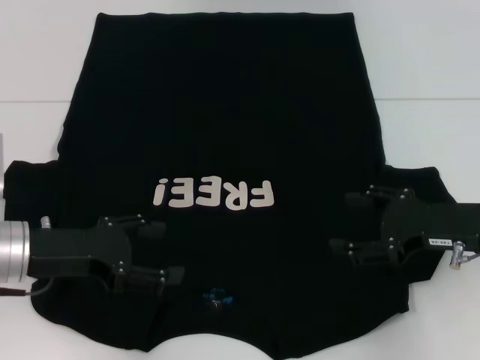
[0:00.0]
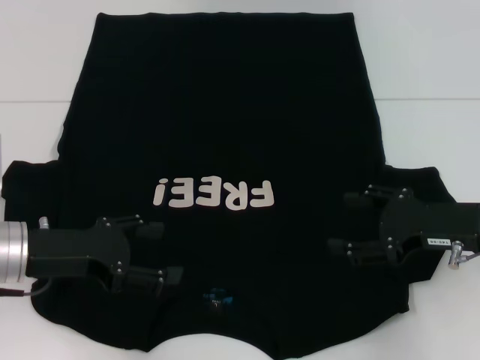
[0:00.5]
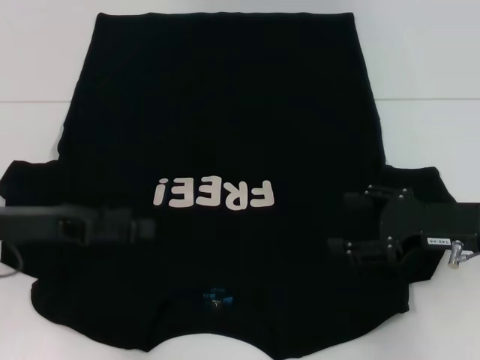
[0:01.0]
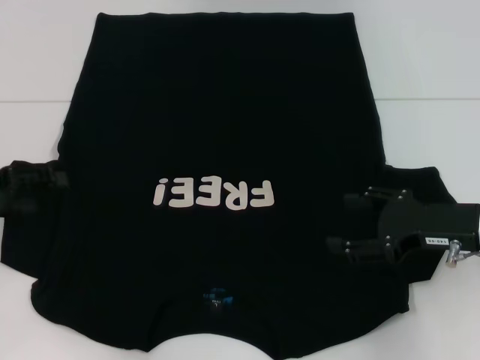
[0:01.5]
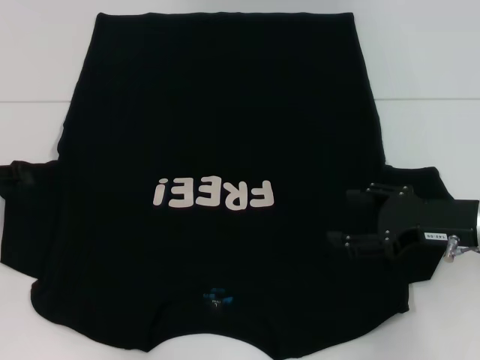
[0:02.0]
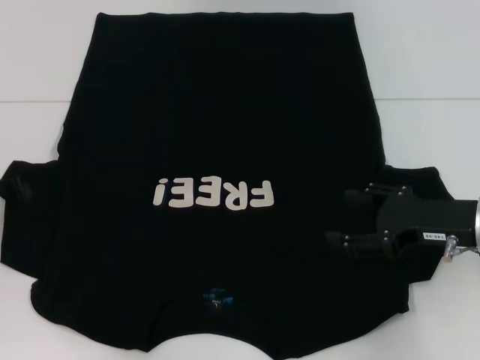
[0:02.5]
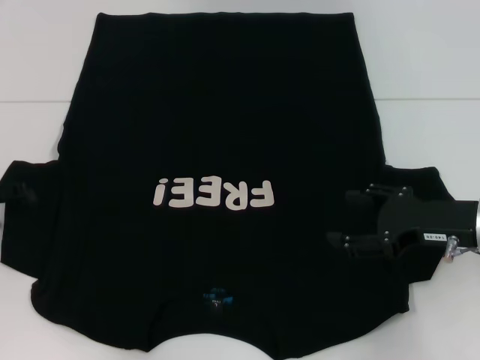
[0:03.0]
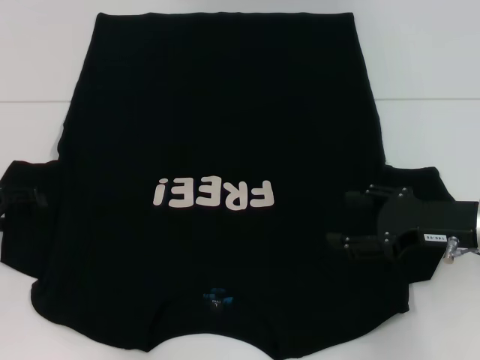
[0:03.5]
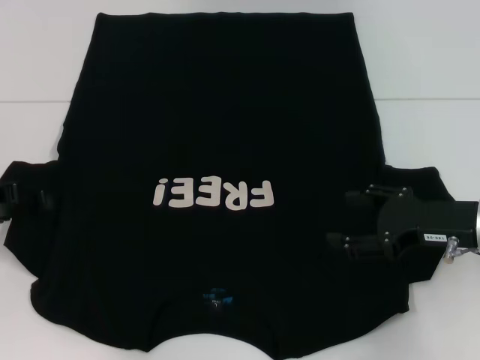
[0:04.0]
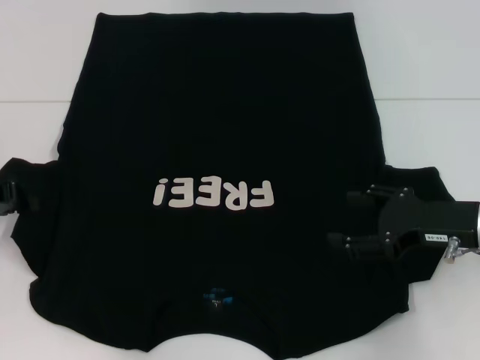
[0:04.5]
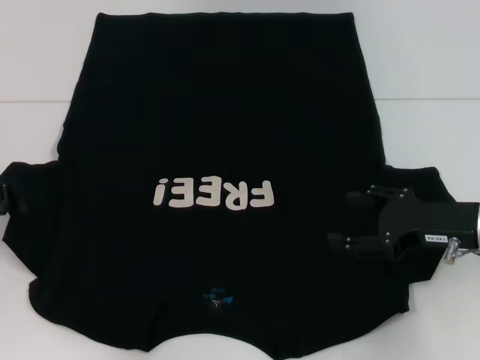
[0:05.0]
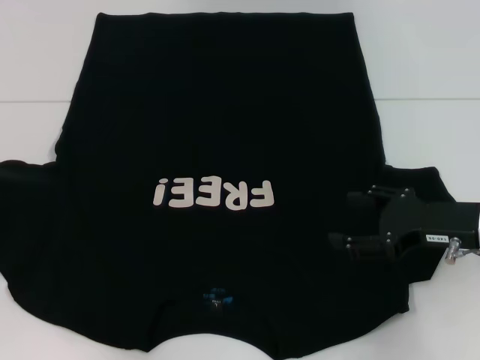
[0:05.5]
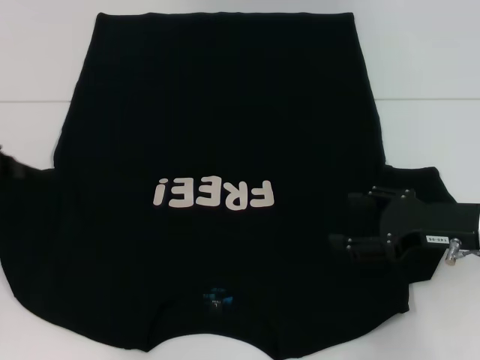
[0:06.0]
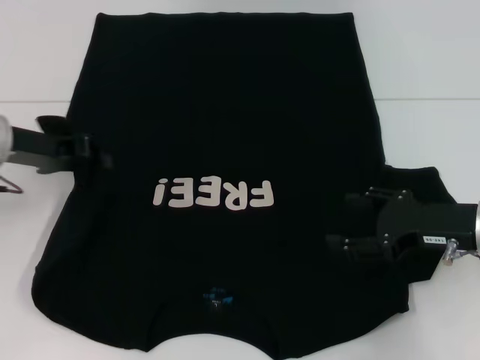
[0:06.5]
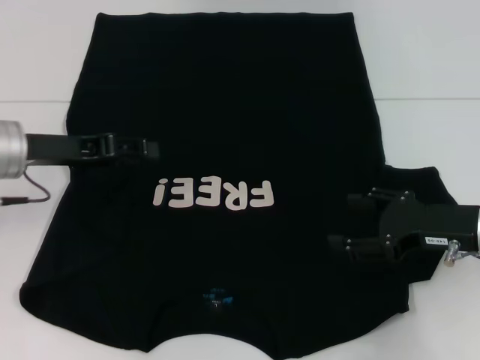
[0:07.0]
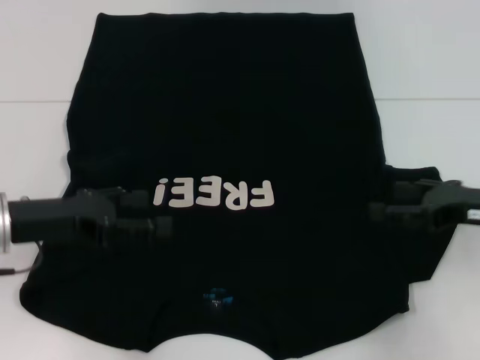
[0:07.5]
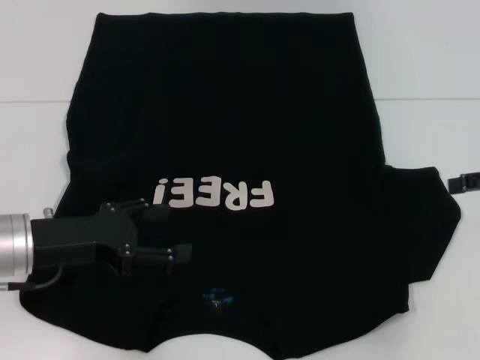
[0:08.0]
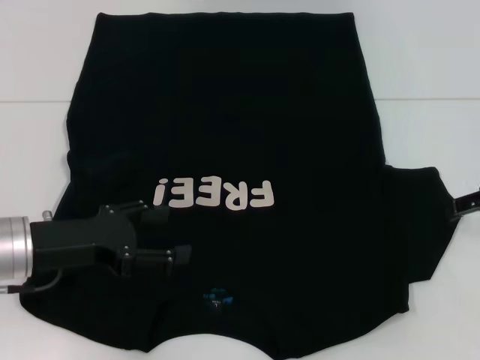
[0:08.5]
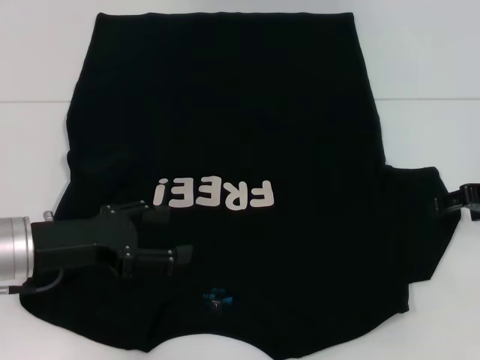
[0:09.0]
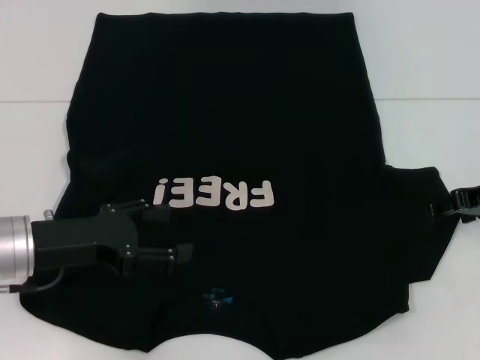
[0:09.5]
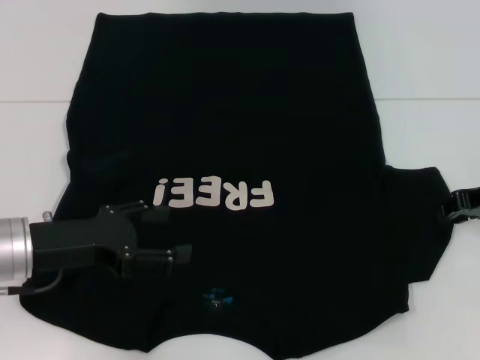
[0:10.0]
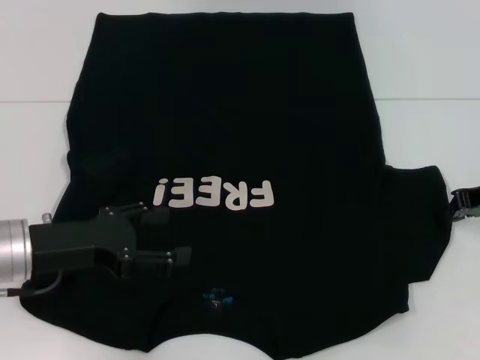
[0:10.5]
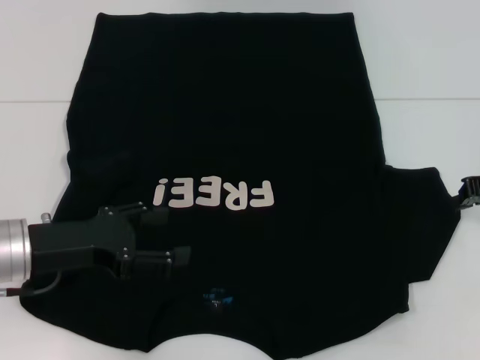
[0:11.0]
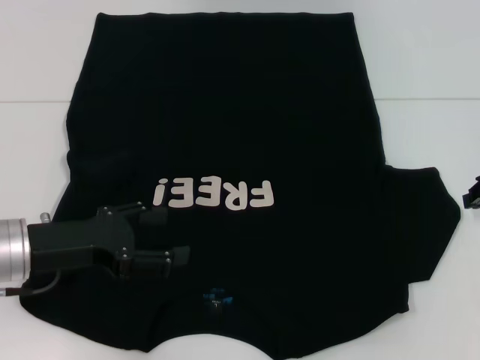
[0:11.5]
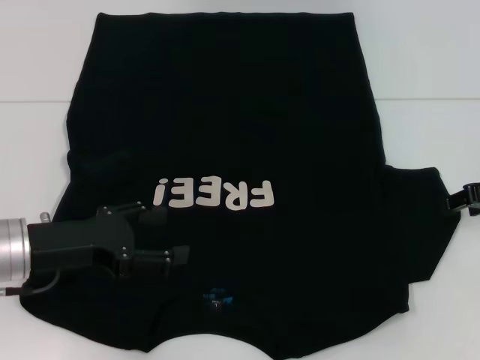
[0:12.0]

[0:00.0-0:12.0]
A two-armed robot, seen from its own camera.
Step, 0:00.0 to 0:11.5: Fold the bottom left sleeve with your left hand.
0:00.0 to 0:02.0: The left gripper heads to the left, covering roughly 10 cm.
0:04.0 to 0:06.0: The left gripper closes.
0:06.0 to 0:08.0: The left gripper goes roughly 15 cm to the right, downward and backward, and opens its fingers. Meanwhile the right gripper goes some 10 cm to the right and upward.
0:08.0 to 0:10.0: The right gripper ends up about 5 cm from where it was, and closes up.

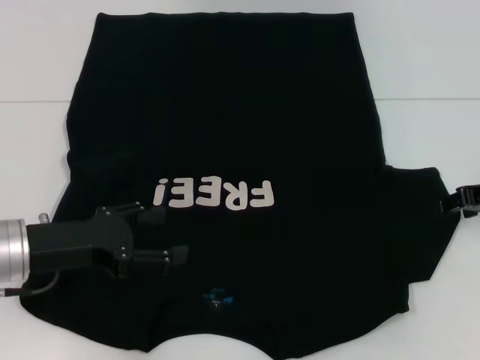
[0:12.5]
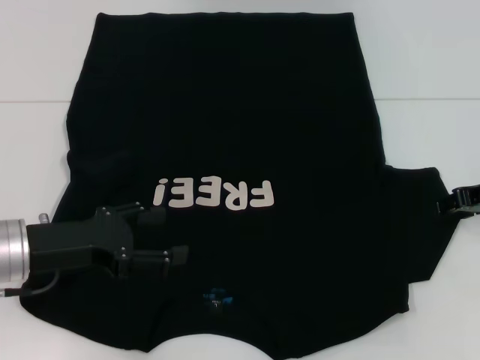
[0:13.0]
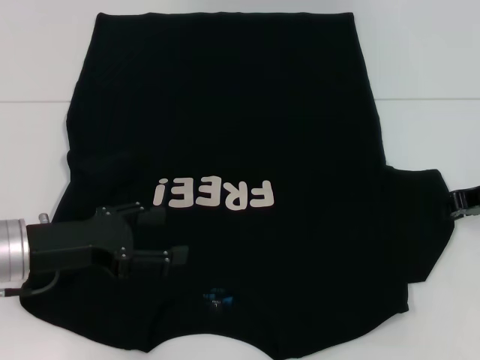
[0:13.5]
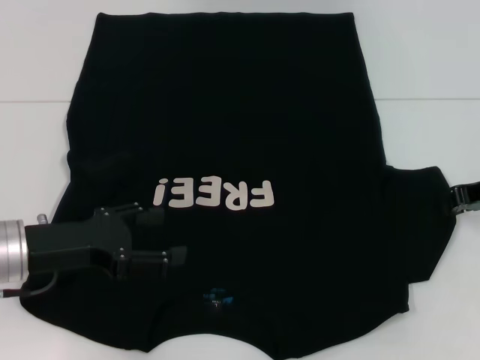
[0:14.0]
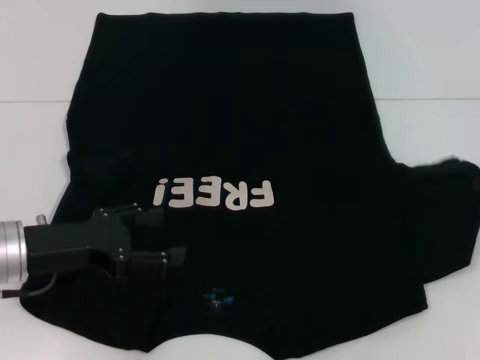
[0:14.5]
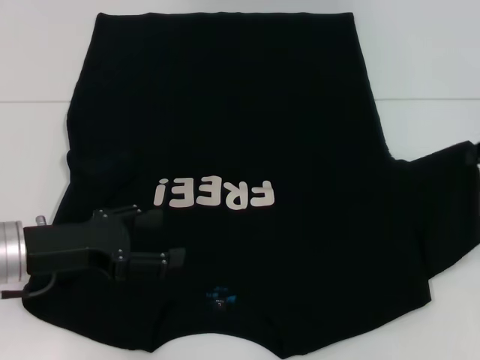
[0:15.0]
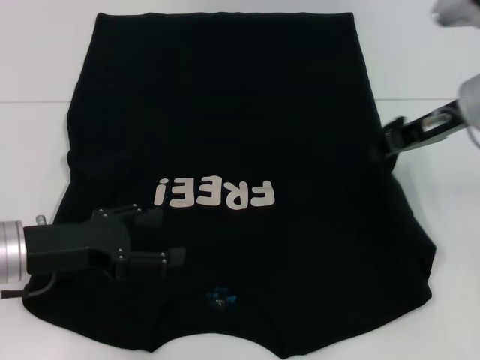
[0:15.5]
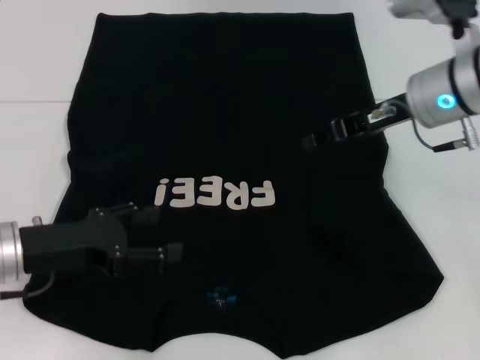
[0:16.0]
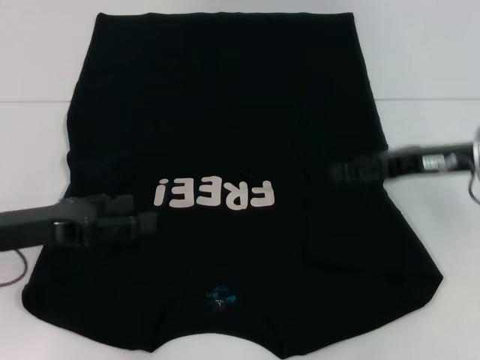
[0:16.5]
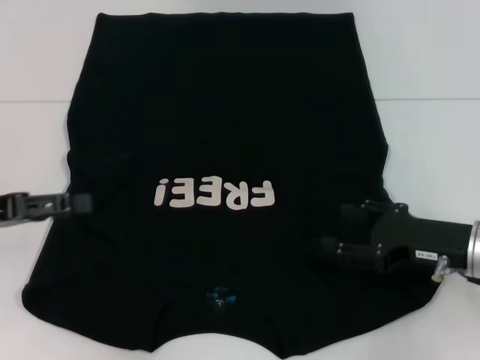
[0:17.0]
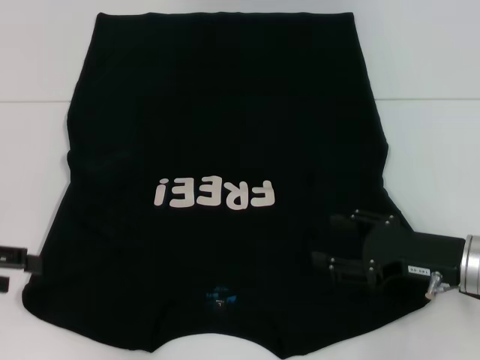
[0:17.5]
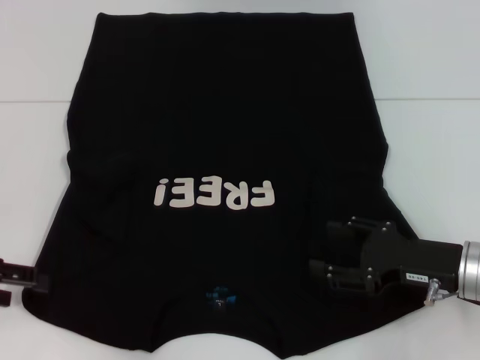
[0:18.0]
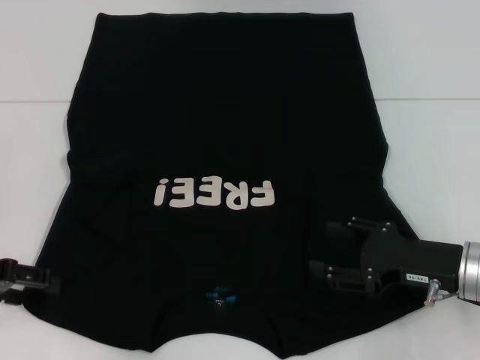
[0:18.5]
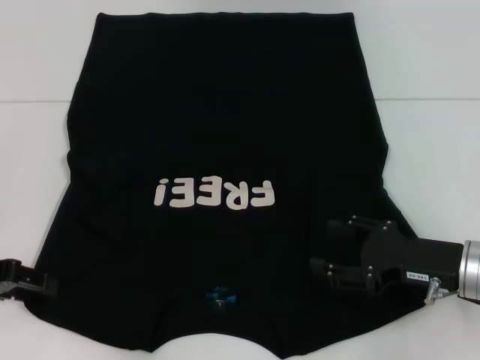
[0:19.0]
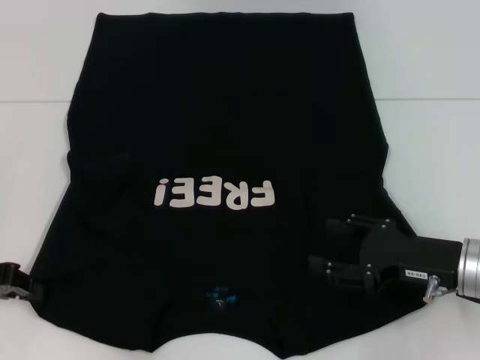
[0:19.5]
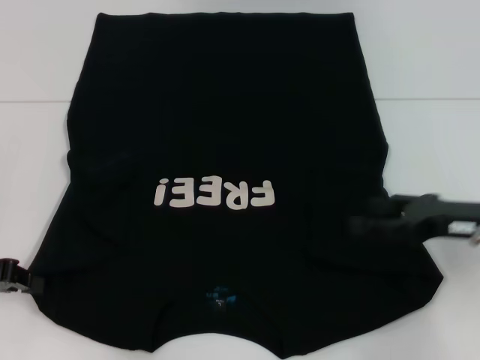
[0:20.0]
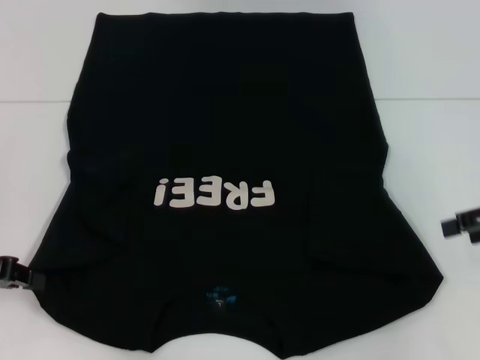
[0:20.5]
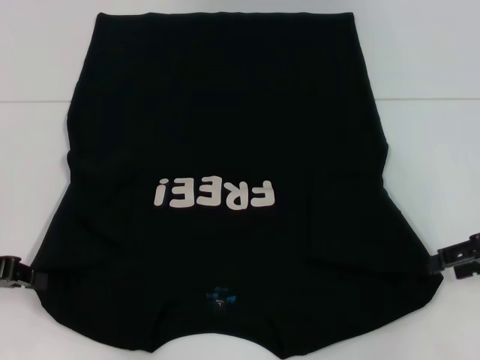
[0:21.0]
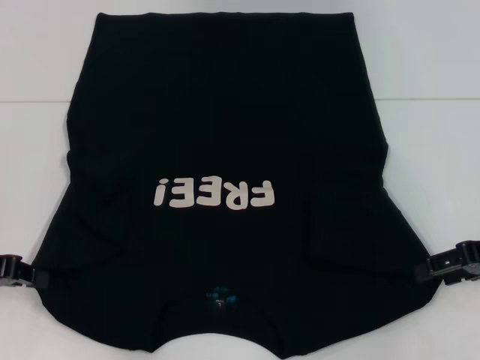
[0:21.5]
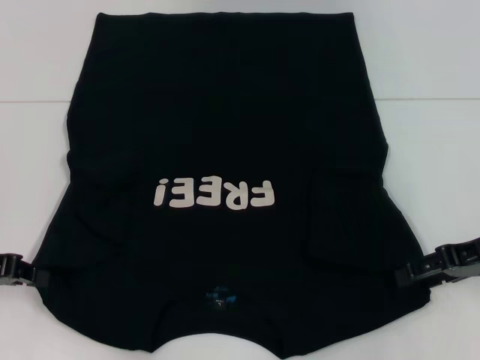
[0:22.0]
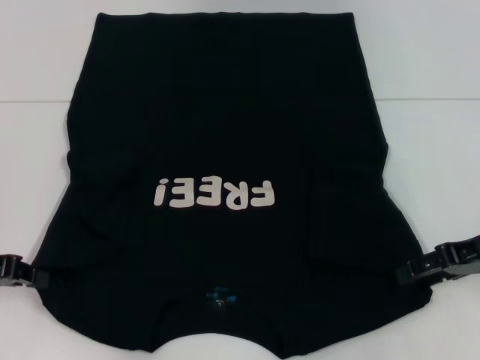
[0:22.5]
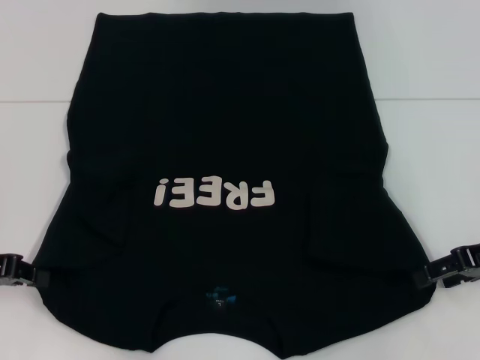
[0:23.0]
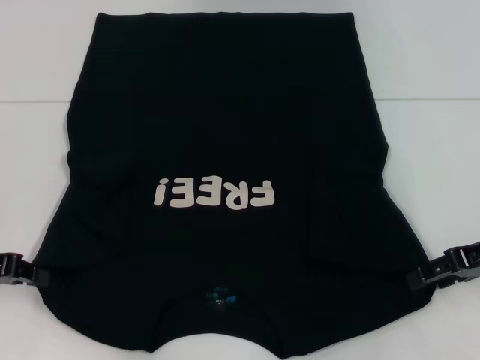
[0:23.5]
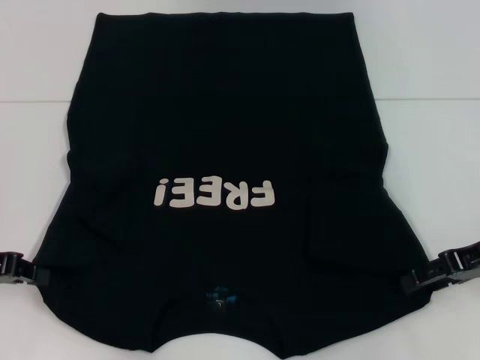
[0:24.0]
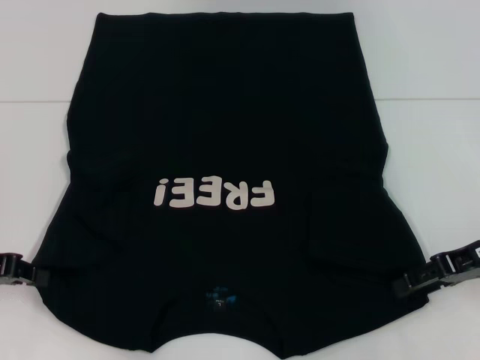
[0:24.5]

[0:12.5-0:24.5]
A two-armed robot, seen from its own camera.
Step, 0:12.5 to 0:16.0: Fold the bottom right sleeve with your right hand.
0:12.5 to 0:14.5: The right gripper closes.
0:14.5 to 0:16.5: The right gripper heads to the left, covering approximately 10 cm, and opens its fingers.
0:16.5 to 0:18.5: The left gripper goes about 5 cm to the left. Meanwhile the right gripper moves backward and downward, approximately 10 cm.
0:18.5 to 0:20.5: The left gripper closes its fingers, while the right gripper goes some 15 cm upward and to the right.
0:20.5 to 0:22.5: The right gripper ends up roughly 5 cm from where it was.
0:22.5 to 0:24.5: The grippers move only a little.

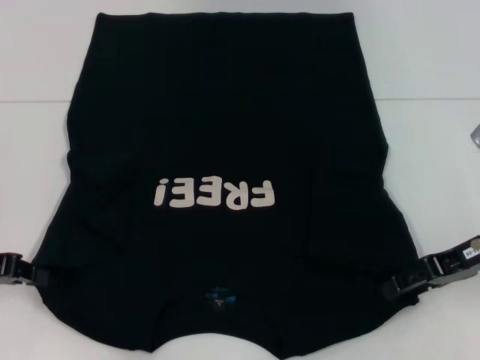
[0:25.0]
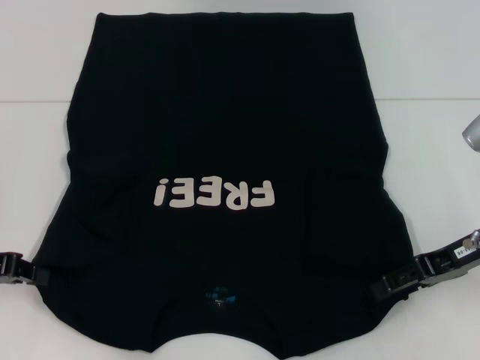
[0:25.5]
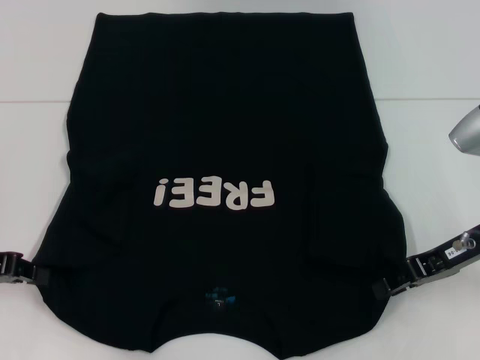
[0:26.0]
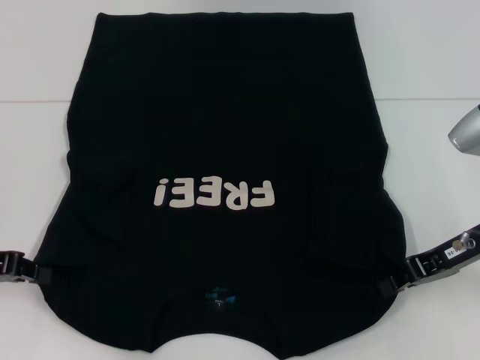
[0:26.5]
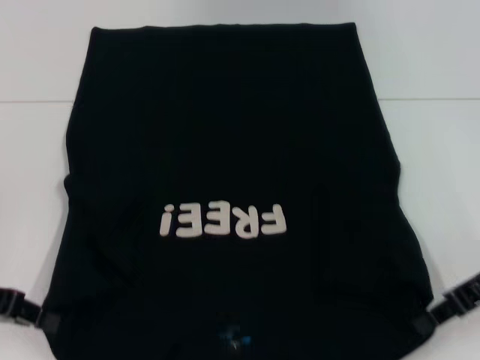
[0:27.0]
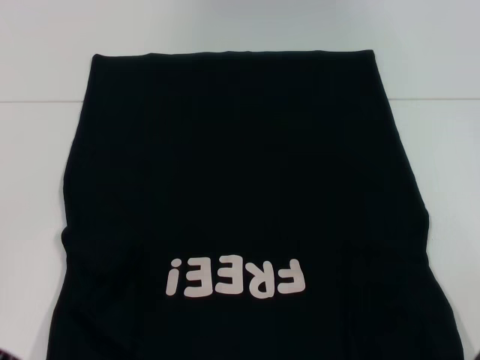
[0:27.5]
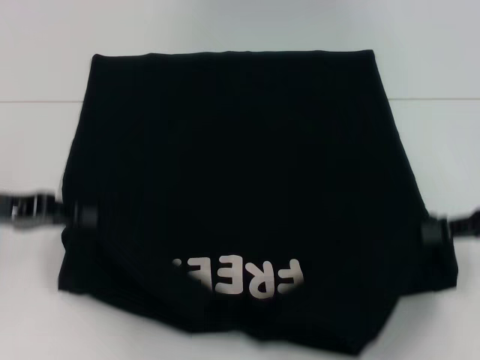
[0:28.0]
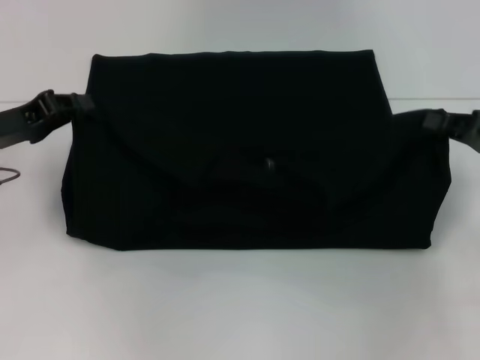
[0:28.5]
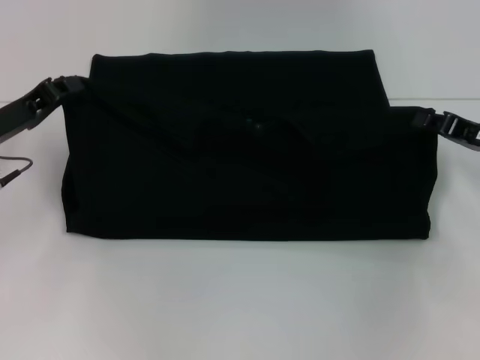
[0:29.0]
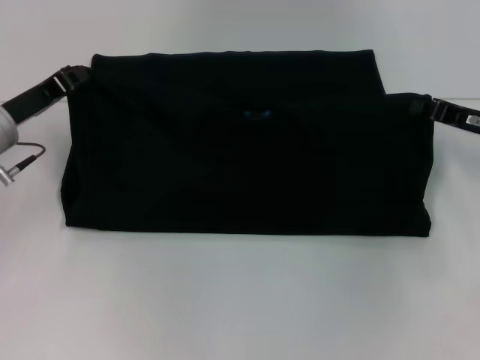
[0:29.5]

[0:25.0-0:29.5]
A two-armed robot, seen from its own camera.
0:25.0 to 0:27.0: The right gripper closes.
0:27.0 to 0:29.5: The left gripper heads forward and to the right, covering roughly 10 cm. The right gripper goes approximately 5 cm forward.
